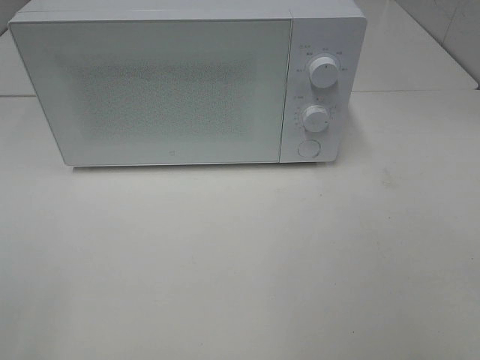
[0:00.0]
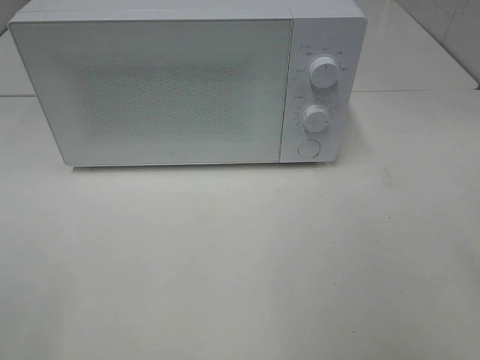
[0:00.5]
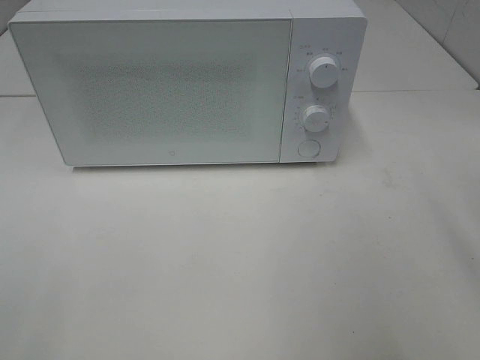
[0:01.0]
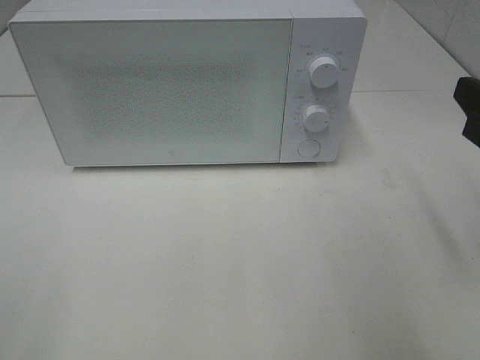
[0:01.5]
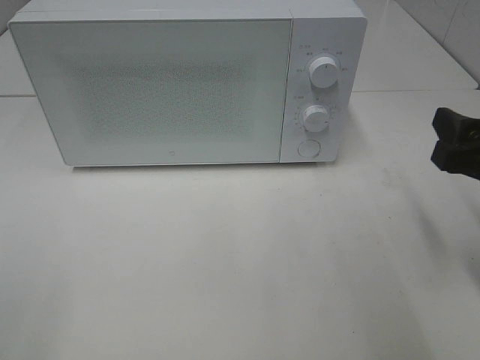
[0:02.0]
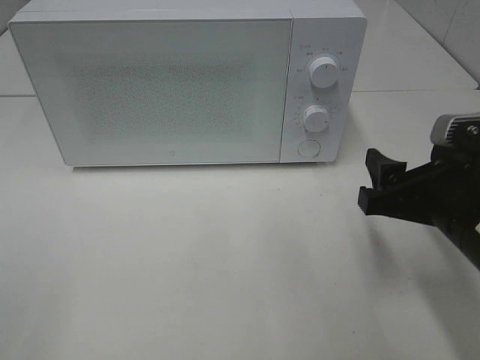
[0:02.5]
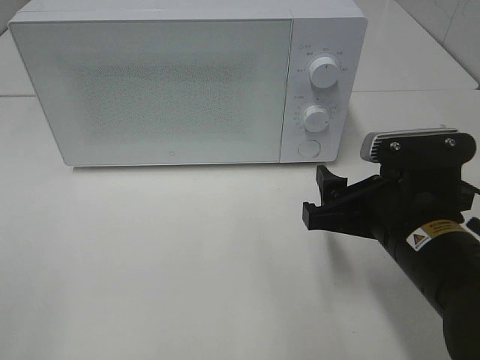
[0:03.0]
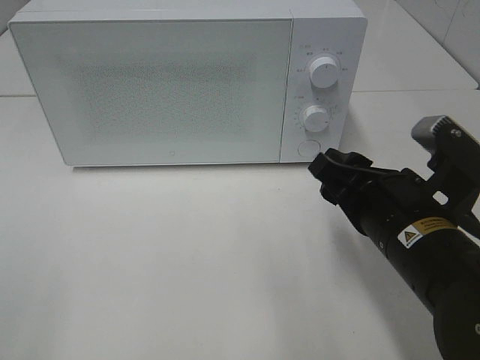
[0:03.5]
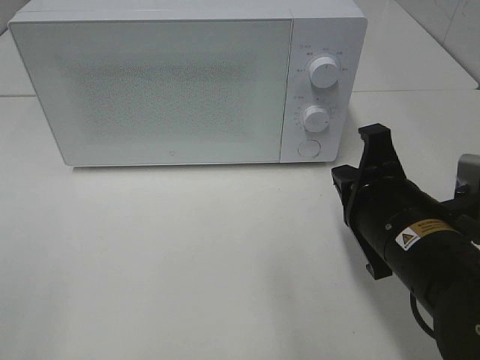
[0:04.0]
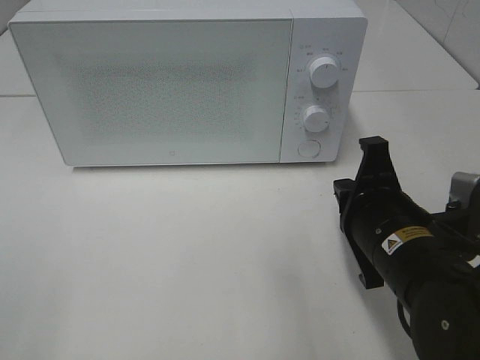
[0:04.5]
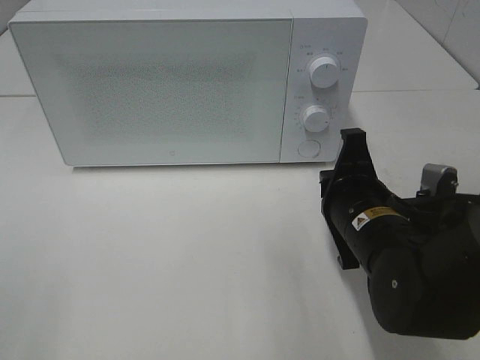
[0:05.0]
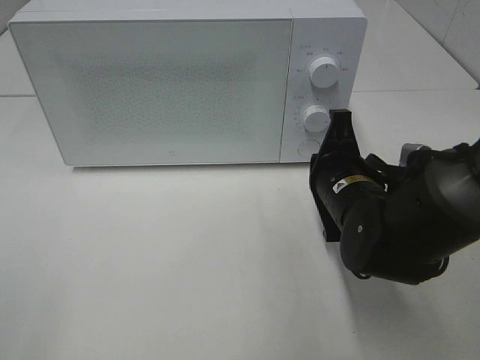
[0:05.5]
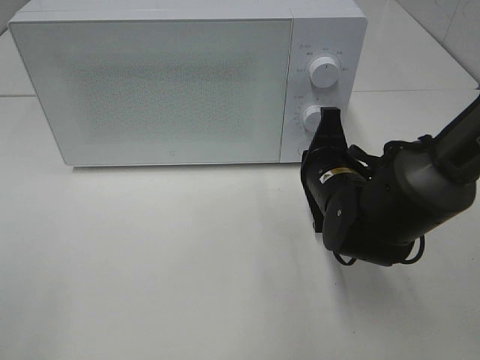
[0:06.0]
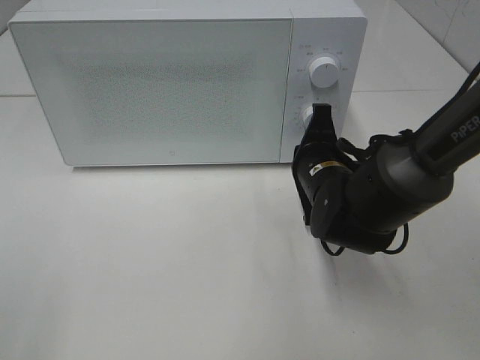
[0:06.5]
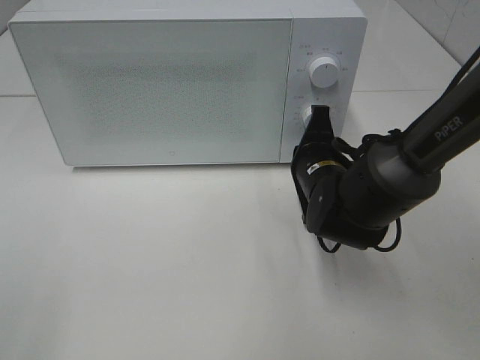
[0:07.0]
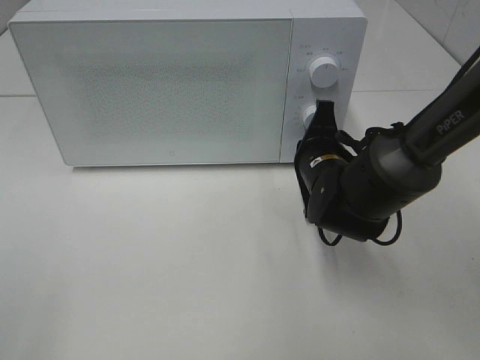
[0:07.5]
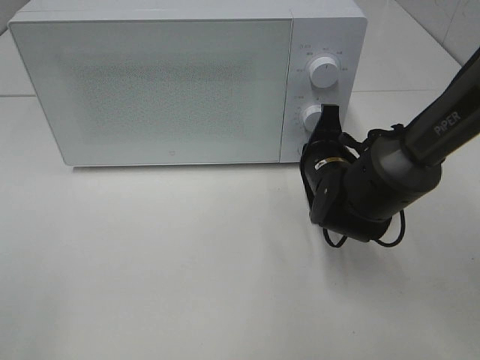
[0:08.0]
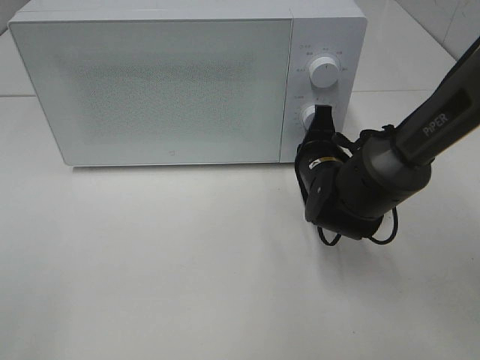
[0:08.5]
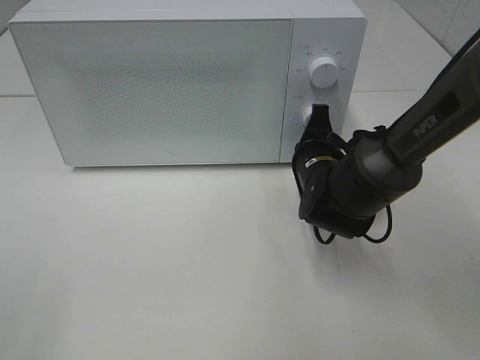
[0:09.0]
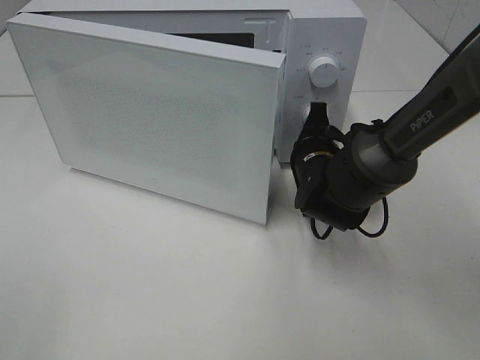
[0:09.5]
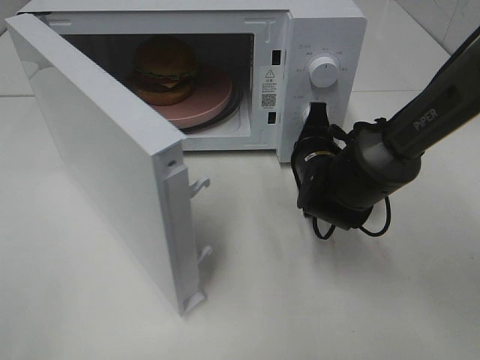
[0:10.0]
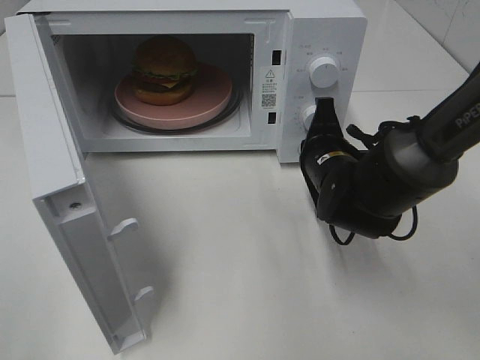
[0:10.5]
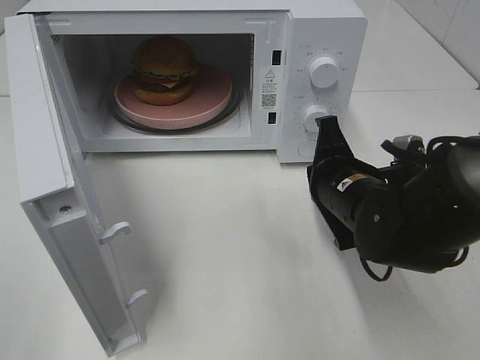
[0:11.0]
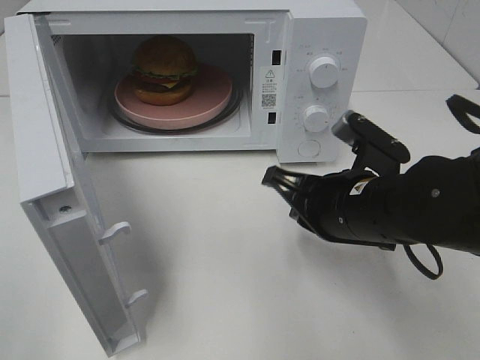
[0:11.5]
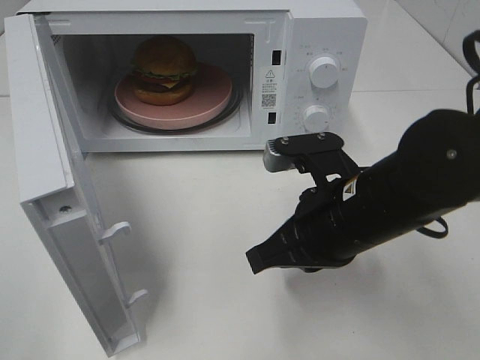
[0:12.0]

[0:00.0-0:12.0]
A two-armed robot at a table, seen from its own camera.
Task of the whole recording: Heat the burger.
Step, 0.0 to 10.5 s: Right hand: press the switch.
0.0 to 2.0 s: The right gripper heads forward and downward, covering approximately 20 cm.
2.0 to 4.0 s: The right gripper travels to the left by some 10 cm, and closes.
4.0 to 6.0 s: The right gripper is displaced forward and downward by roughly 10 cm.
6.0 to 8.0 s: There are only small adjustments of the grippers.
10.0 to 12.0 s: The right gripper travels backward and upward by roughly 15 cm.

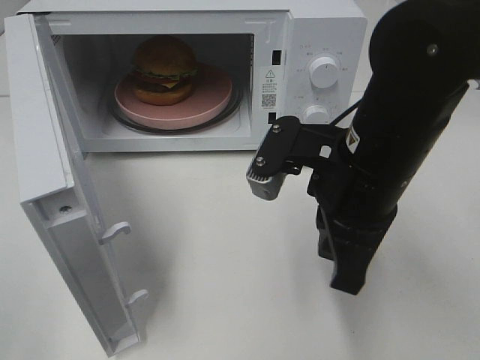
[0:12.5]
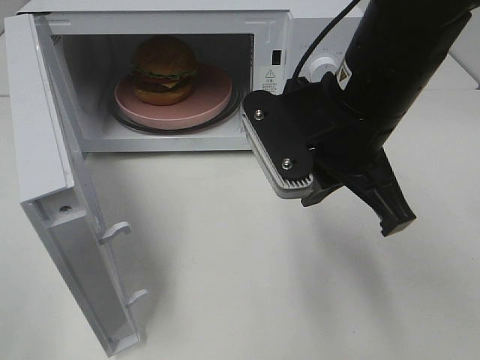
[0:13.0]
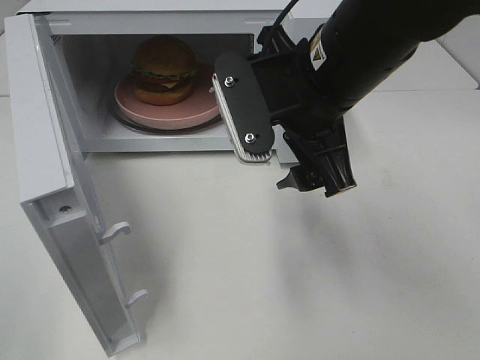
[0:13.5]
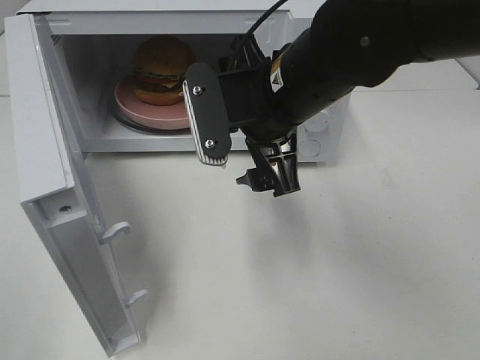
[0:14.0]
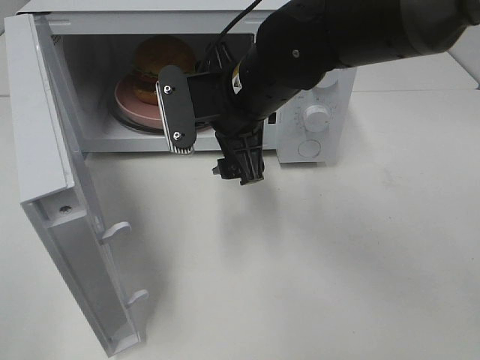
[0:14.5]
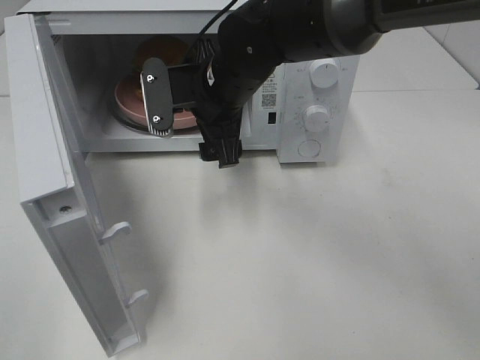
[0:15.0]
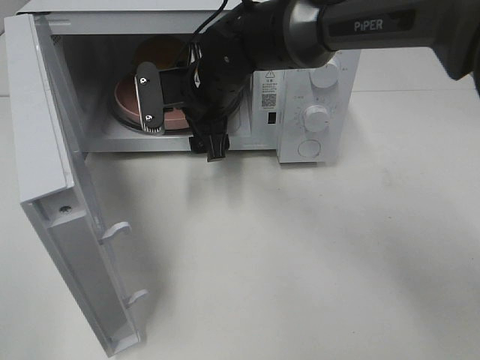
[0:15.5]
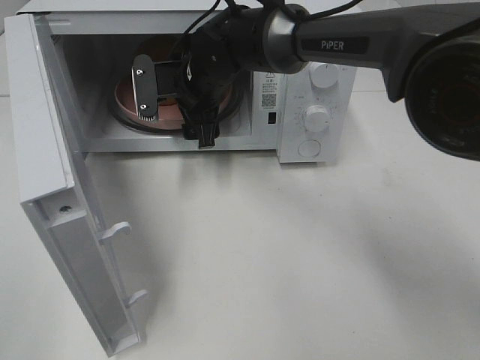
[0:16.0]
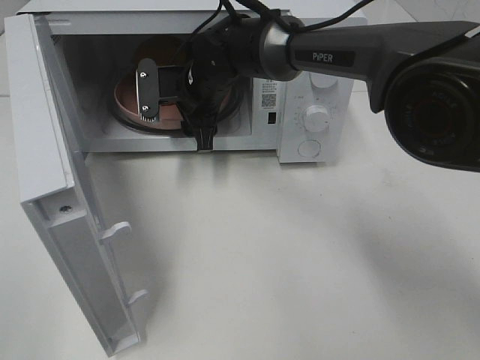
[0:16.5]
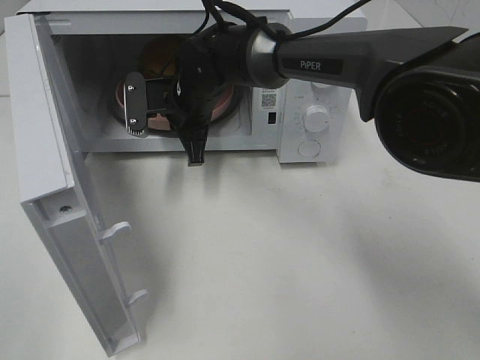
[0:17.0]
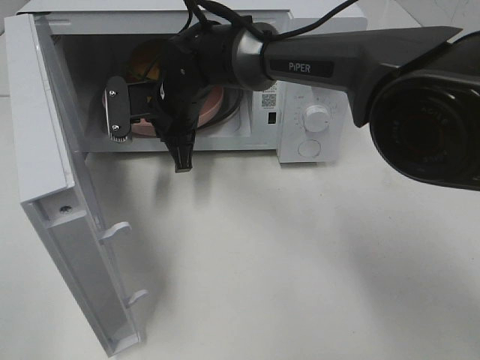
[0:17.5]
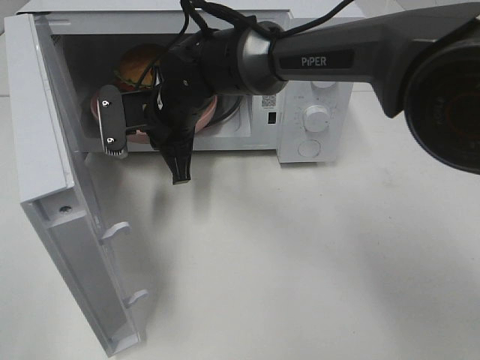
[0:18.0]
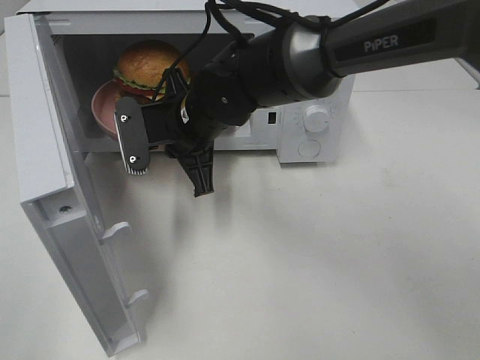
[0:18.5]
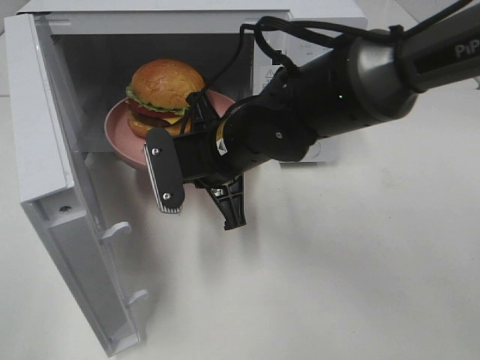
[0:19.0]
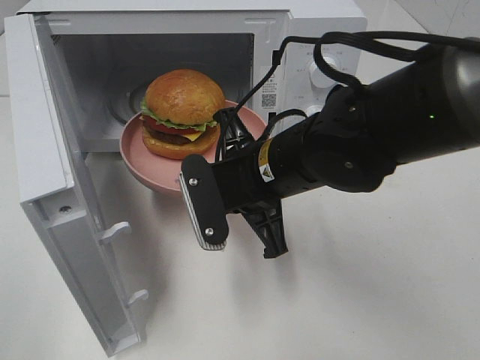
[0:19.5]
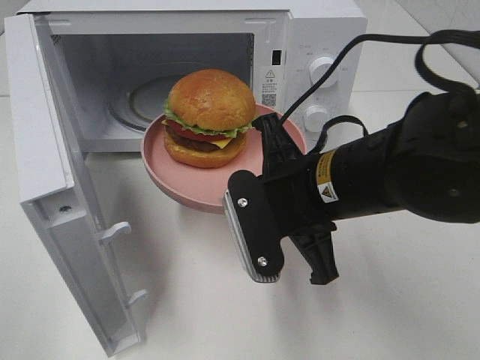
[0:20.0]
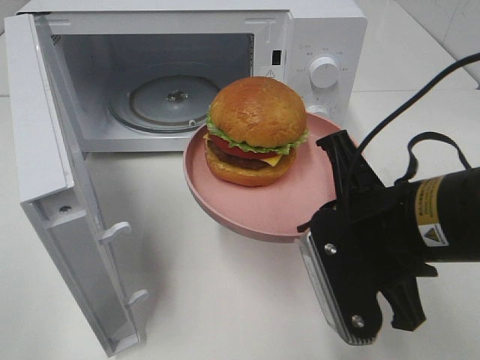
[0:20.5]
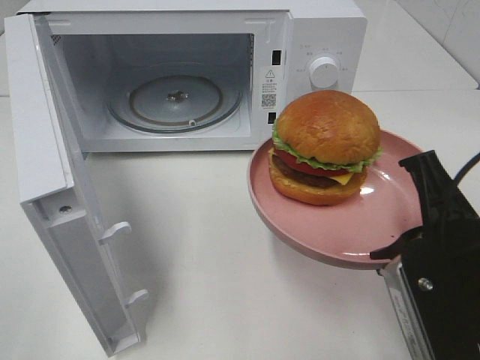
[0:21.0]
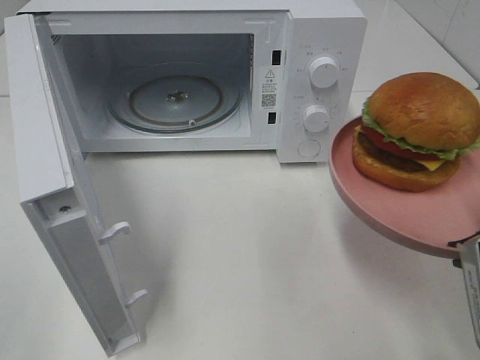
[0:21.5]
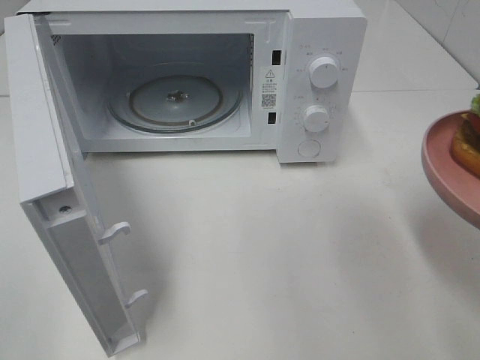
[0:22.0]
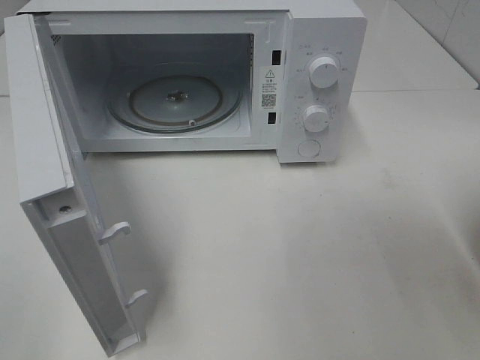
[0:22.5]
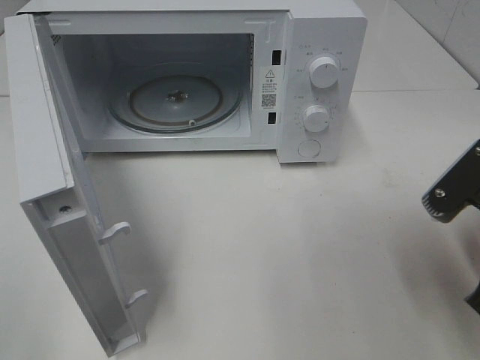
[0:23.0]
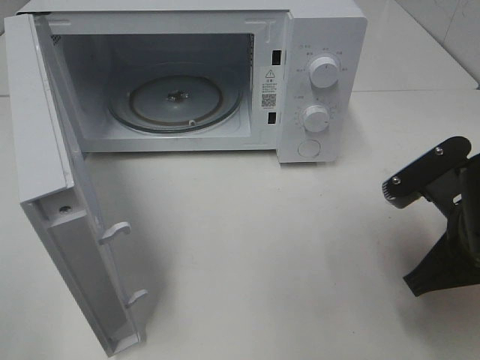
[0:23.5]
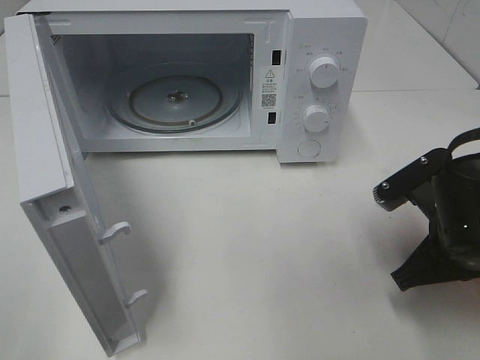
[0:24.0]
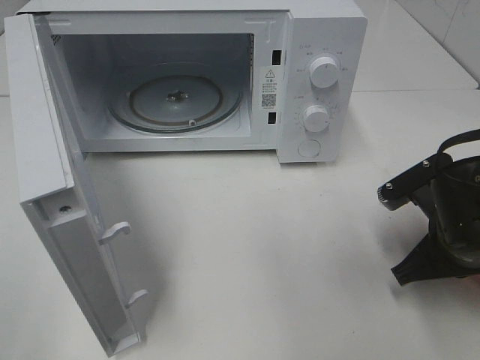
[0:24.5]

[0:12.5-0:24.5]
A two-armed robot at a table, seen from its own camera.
Task of the whole recording: Heat the burger.
Step, 12.5 to 16.5 s: Right hand: grab the plate with the hamburger.
12.5 to 14.5 s: The right gripper goes some 15 cm forward and to the left, and opens up.
14.5 to 16.5 s: The right gripper moves forward, downward and to the left, approximately 15 cm.
16.5 to 18.5 s: The right gripper moves backward, roughly 10 cm, and closes its fingers.
18.5 to 20.5 s: The right gripper heads backward and to the right, covering approximately 25 cm.
20.5 to 22.5 s: The right gripper moves to the right and backward, about 15 cm.
22.5 to 24.5 s: The right gripper shifts approximately 15 cm downward and forward.

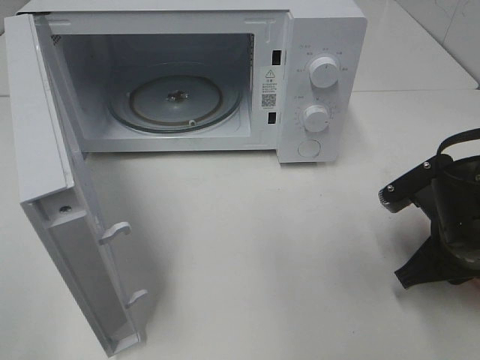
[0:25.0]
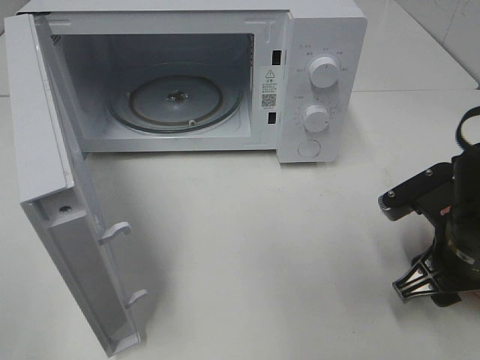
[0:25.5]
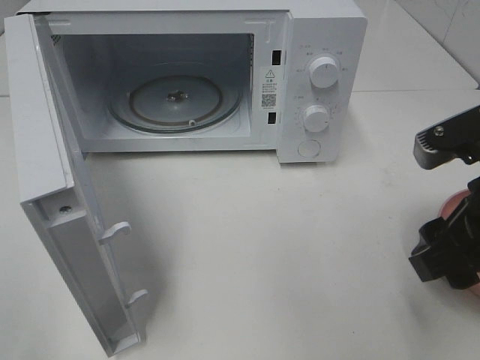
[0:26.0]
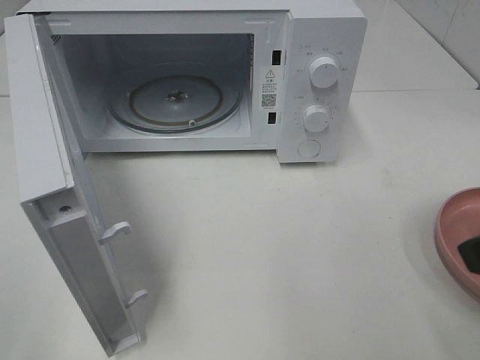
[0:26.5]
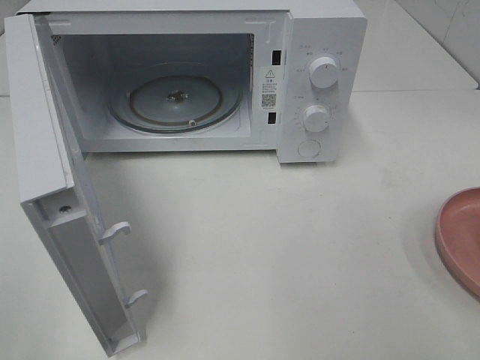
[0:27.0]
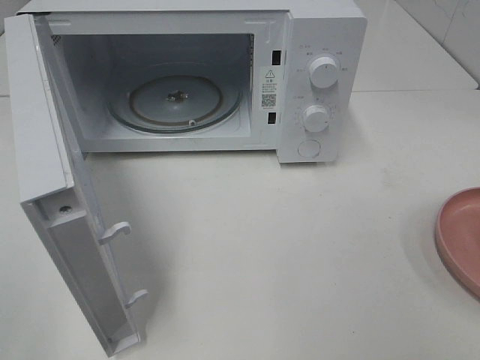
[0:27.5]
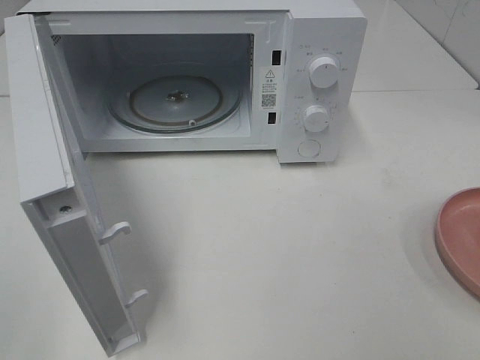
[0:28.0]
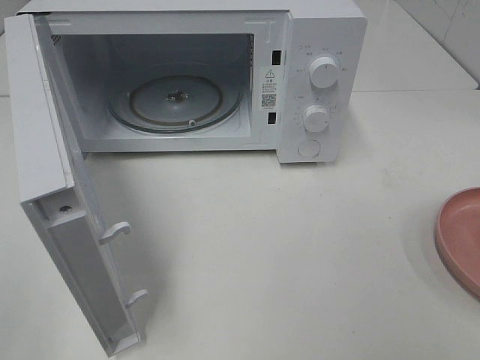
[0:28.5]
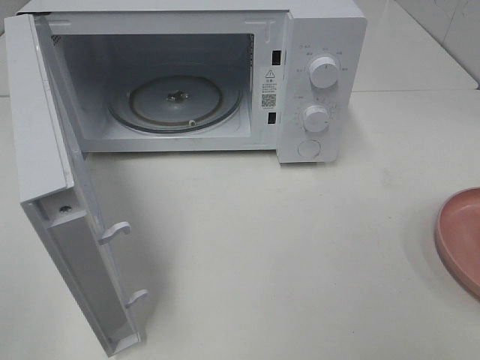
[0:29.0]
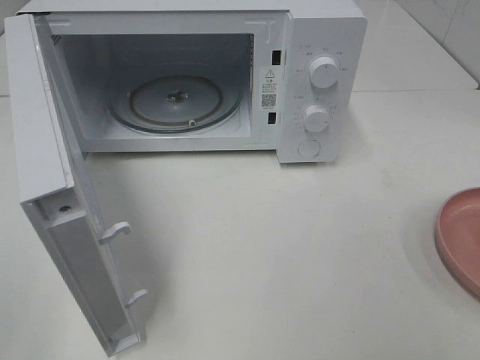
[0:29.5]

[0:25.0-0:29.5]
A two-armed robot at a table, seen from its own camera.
Task of the whole recording: Heat the burger.
25.0 to 27.0 s: The right gripper shifts some 25 cm upward and backward, and opens.
